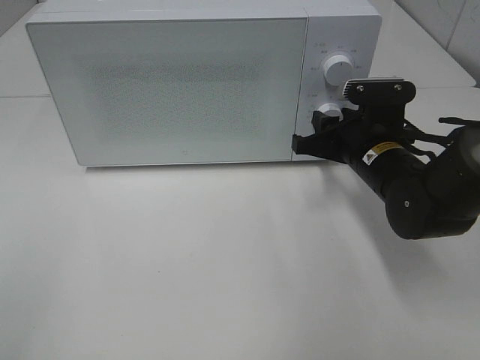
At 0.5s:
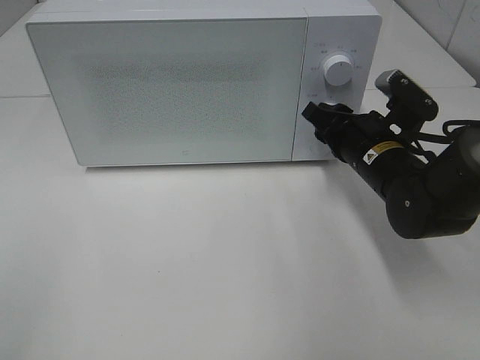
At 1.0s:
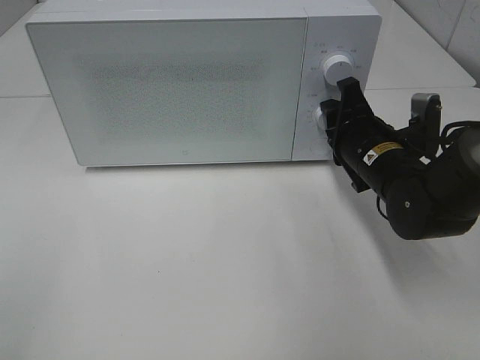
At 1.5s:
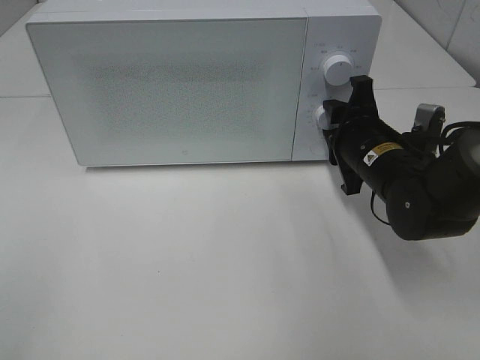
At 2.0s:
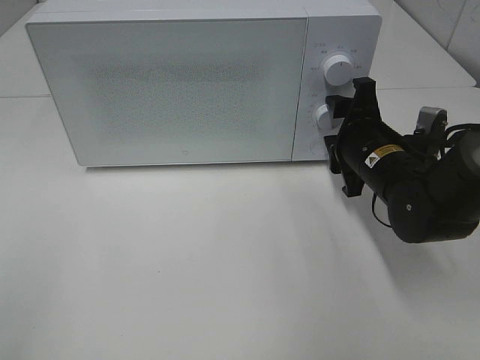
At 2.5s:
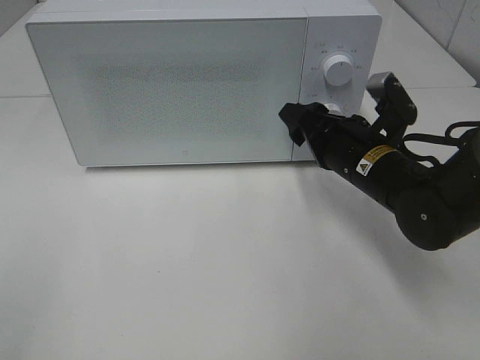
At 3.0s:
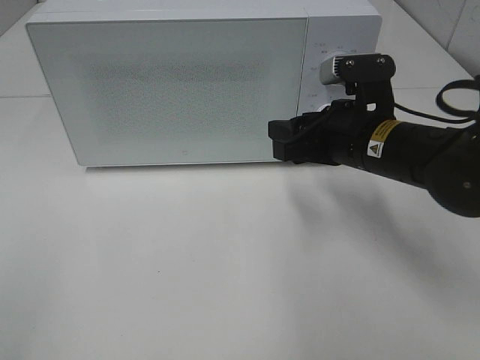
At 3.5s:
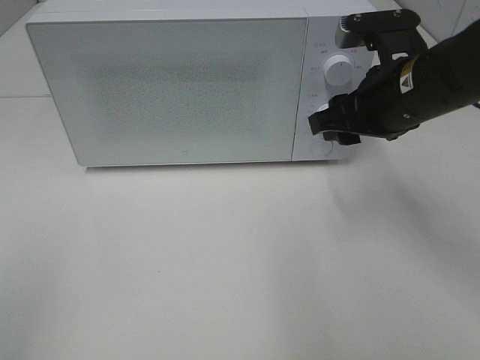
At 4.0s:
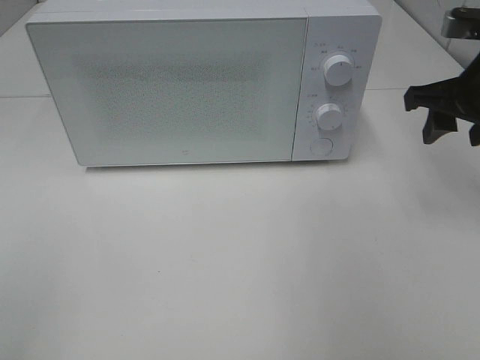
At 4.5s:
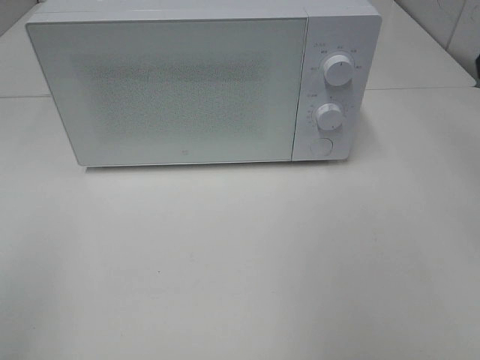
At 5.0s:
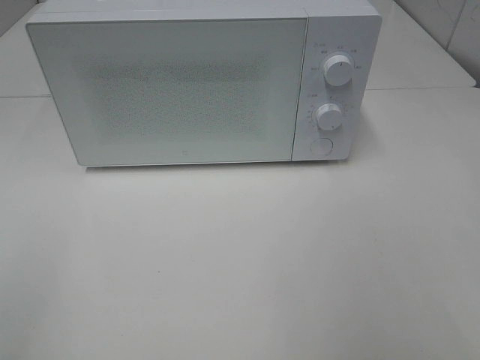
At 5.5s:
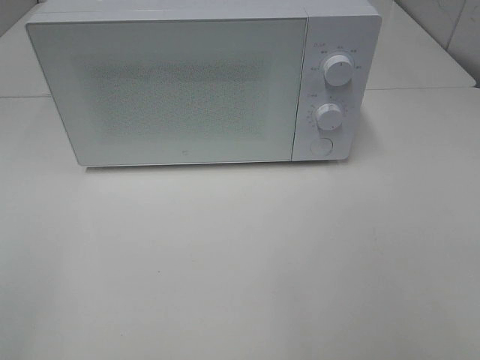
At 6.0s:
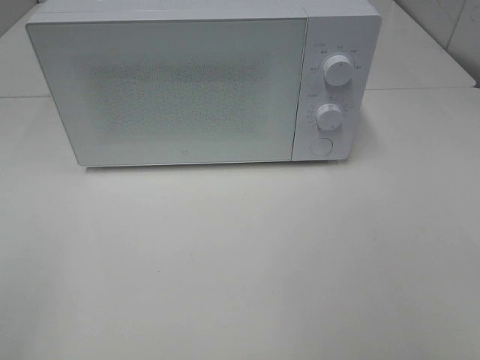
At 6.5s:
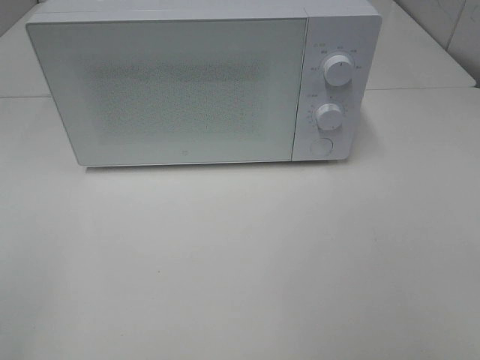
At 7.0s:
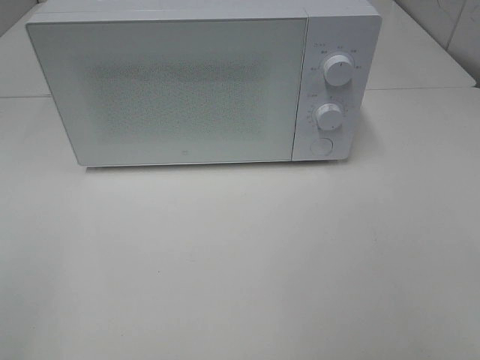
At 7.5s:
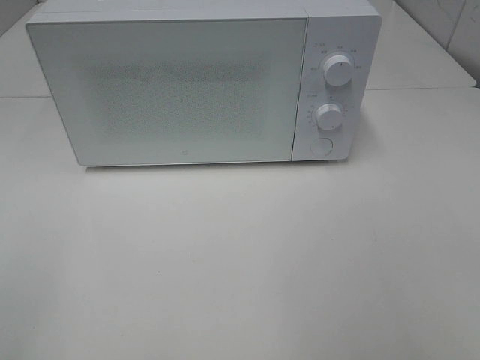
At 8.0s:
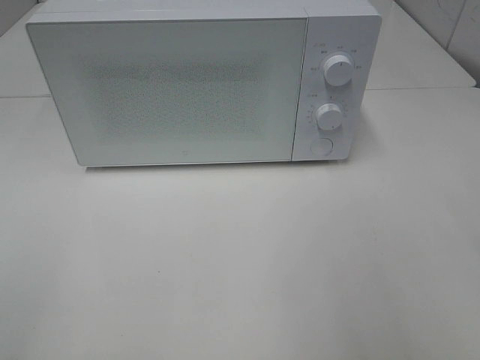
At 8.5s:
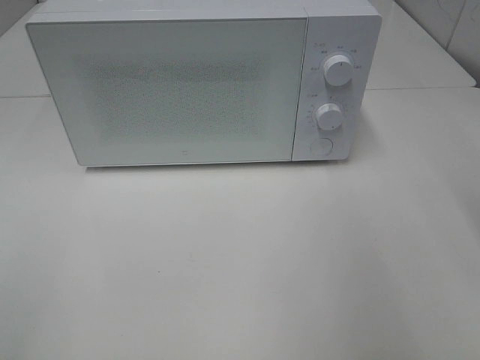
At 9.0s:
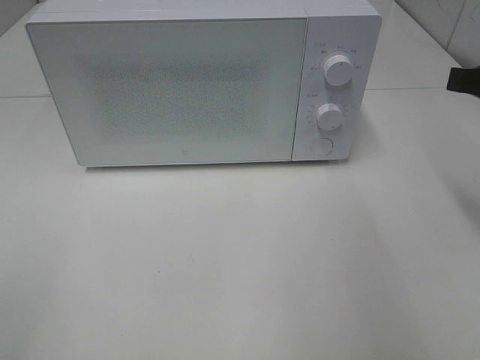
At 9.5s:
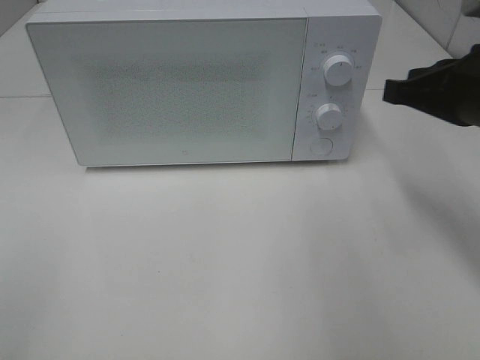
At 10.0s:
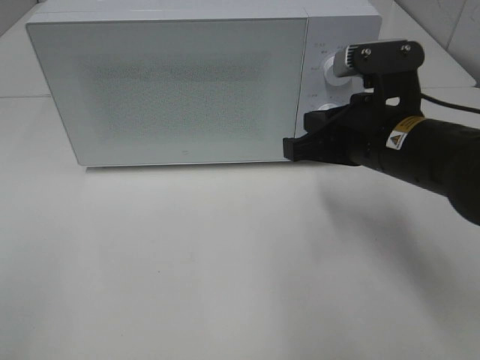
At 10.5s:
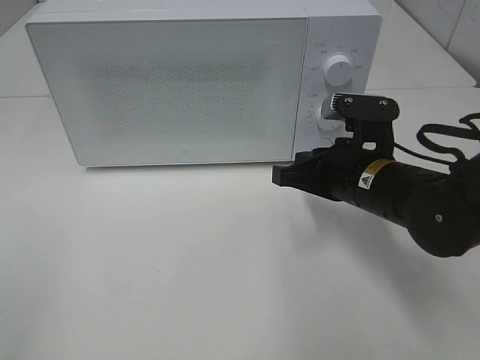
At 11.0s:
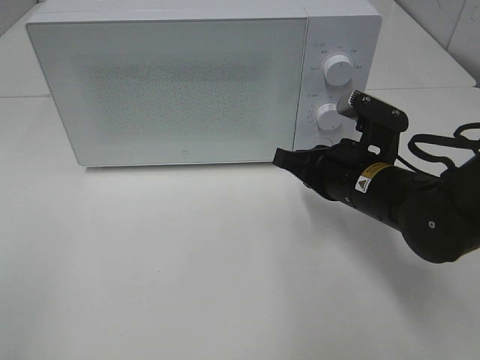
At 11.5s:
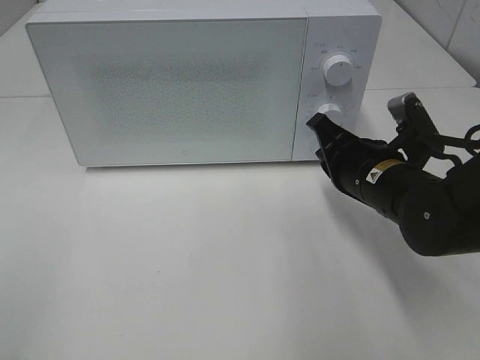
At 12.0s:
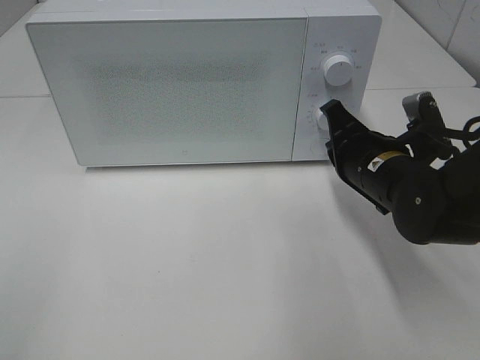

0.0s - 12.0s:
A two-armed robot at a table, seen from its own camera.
Task of the whole recording: Heat the burger.
2.0s - 4.0s: The right gripper travels upward and to the right by some 15 cm.
4.0s - 6.0s: The right gripper goes approximately 30 cm backward.
8.0s - 10.0s: The right gripper goes roughly 25 cm forward, to the left and downward, and closes its fingers.
10.0s - 12.0s: The right gripper shifts about 5 cm downward.

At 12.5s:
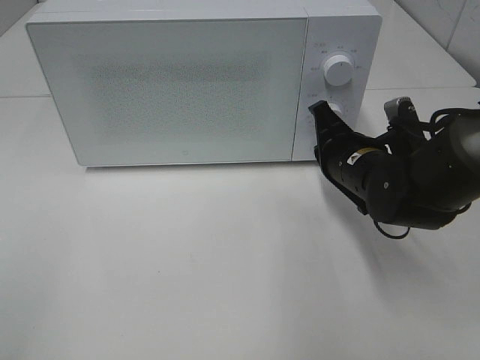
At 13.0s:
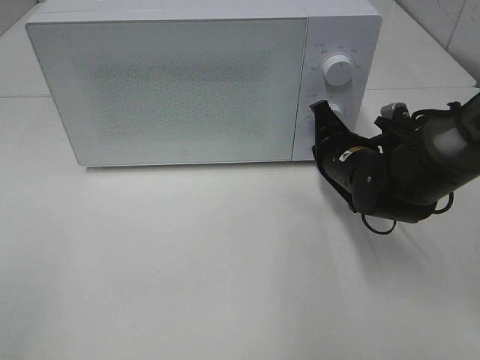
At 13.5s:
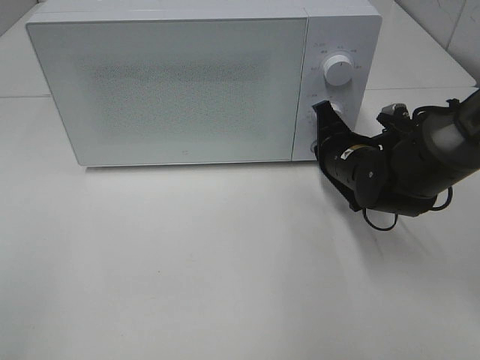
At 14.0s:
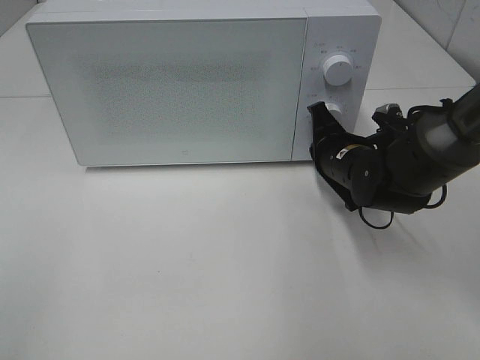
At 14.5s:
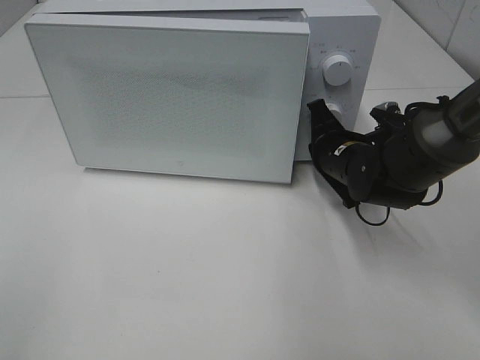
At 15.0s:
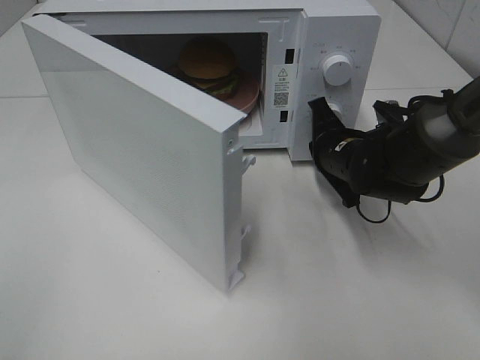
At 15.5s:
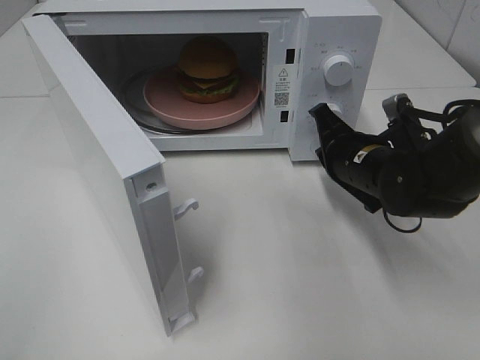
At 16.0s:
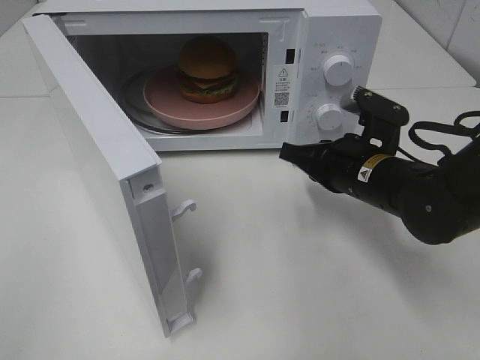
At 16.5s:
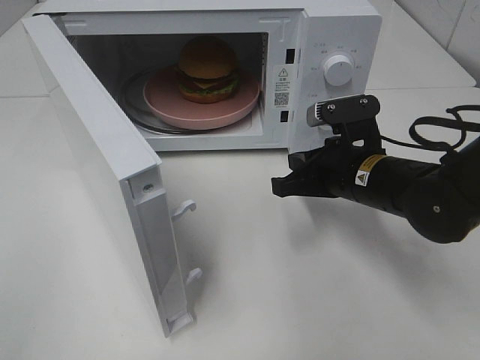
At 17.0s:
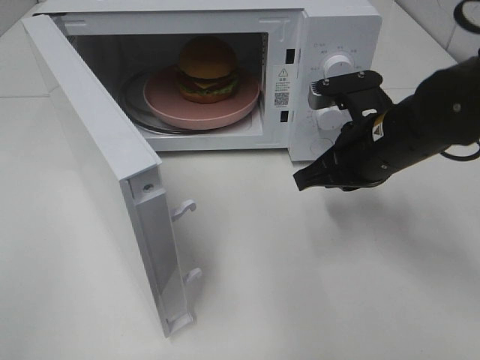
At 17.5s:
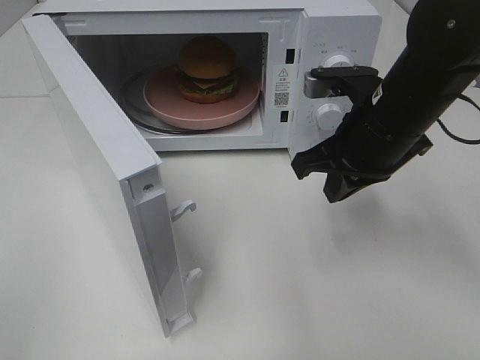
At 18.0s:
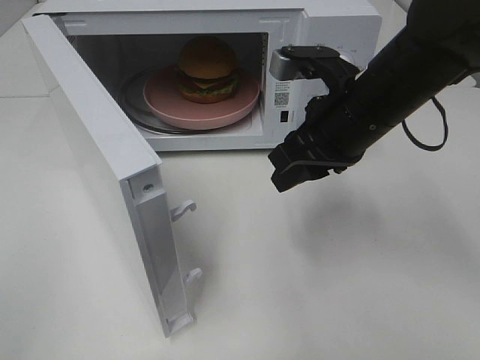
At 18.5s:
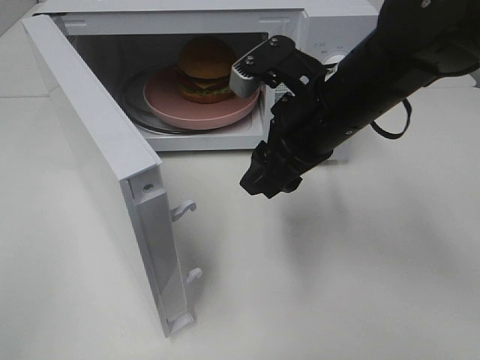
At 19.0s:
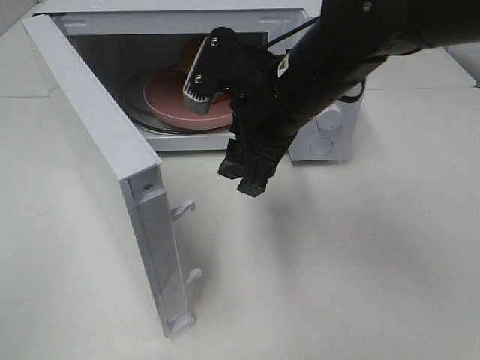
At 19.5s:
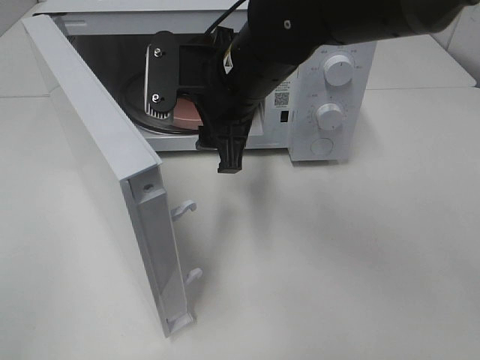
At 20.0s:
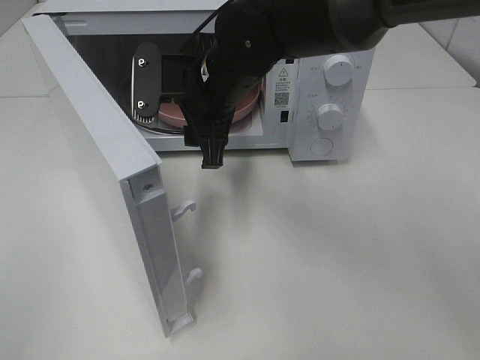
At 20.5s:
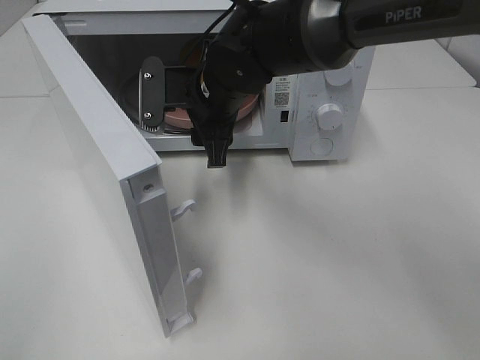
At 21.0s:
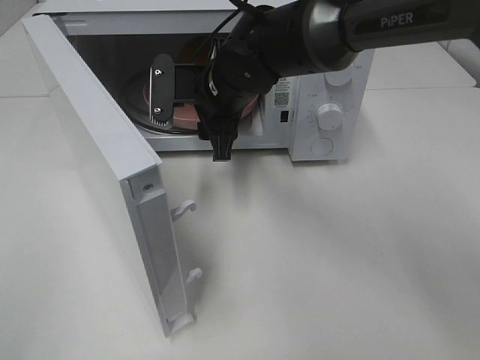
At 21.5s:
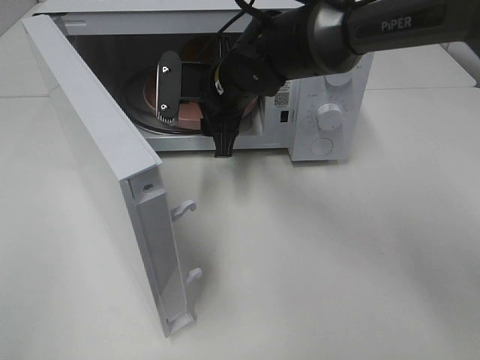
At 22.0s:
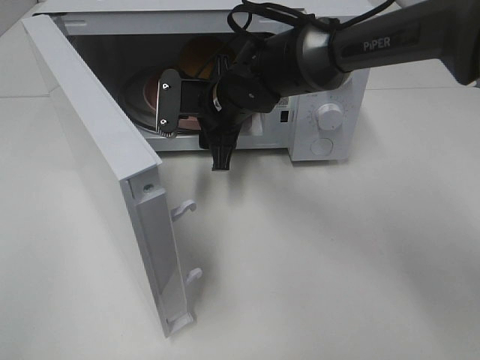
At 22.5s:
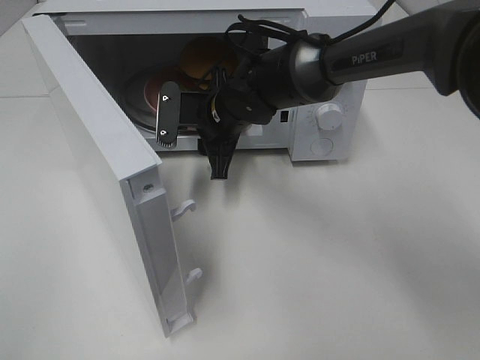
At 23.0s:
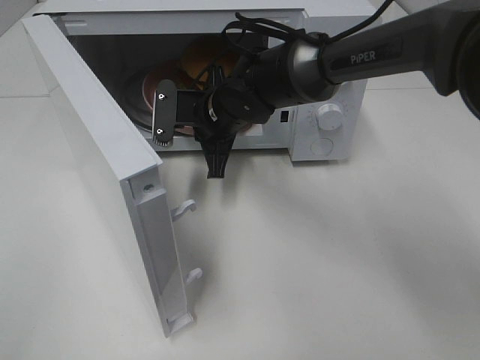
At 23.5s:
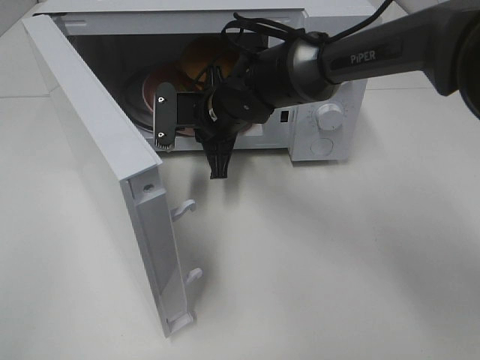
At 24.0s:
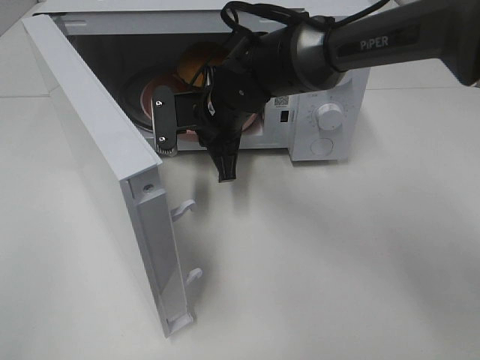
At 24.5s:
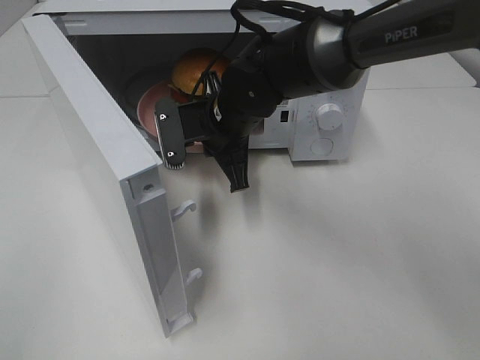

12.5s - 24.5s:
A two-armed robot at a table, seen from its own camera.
Task of the whole recording: Heat the burger.
Step, 12.5s - 15.0s: Right hand: press the switch.
Step, 15.5s - 23.0s: Right hand: grab the plate with the hamburger.
12.5s - 14.5s: The grippers make only small movements.
14.5s - 16.5s: The right gripper shifts about 5 cm backward.
16.5s - 18.5s: The right gripper moves upward and to the left, roughly 10 cm, and opens up.
18.5s - 20.5s: The right gripper travels to the left and forward by about 15 cm.
20.5s - 22.5s: The right gripper goes roughly 5 cm downward.
22.5s - 24.5s: The right gripper closes its fingers.

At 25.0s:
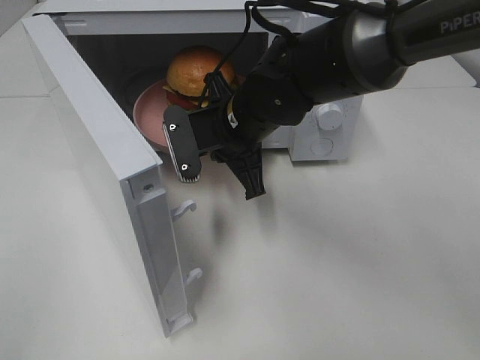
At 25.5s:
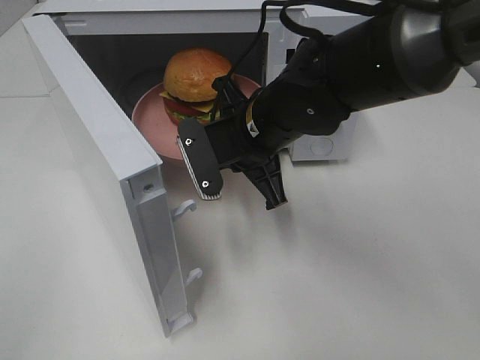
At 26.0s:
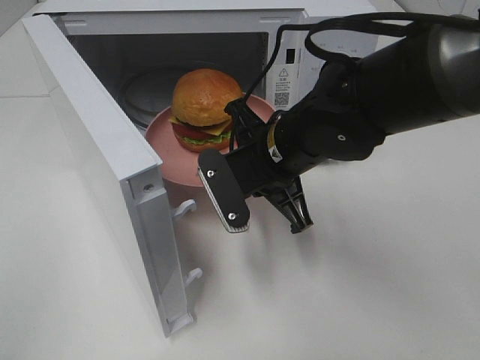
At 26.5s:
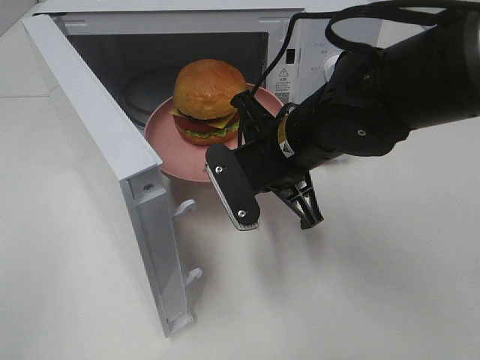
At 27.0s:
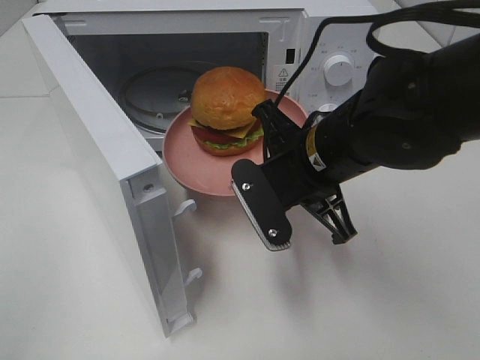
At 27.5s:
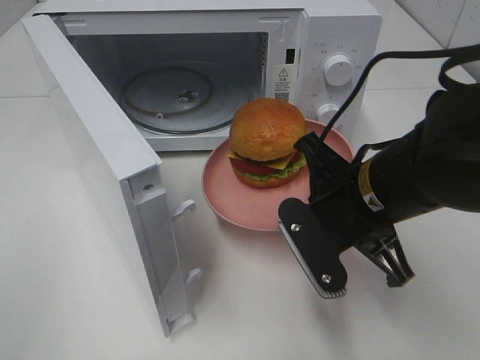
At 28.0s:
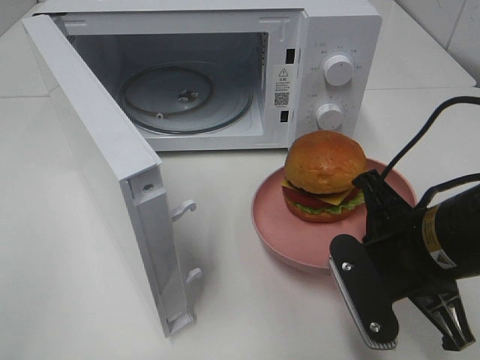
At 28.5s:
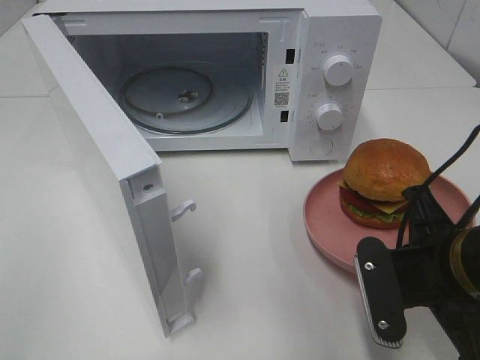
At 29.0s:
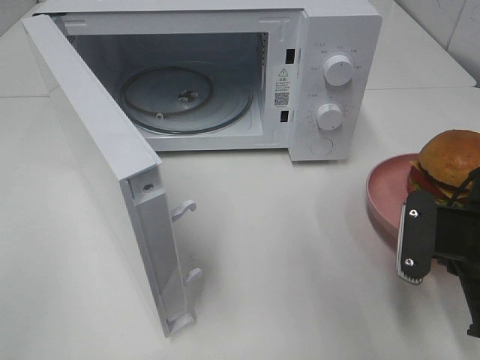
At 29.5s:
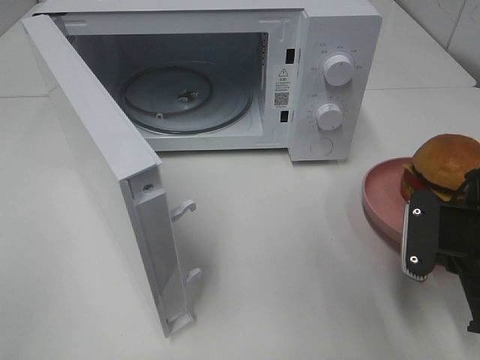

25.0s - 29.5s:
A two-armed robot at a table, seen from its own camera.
Task of the whole recording: Heat the burger.
25.0s - 27.0s: The right gripper travels backward and to the right by about 10 cm.
27.0s - 29.5s: The right gripper travels to the right by approximately 15 cm.
